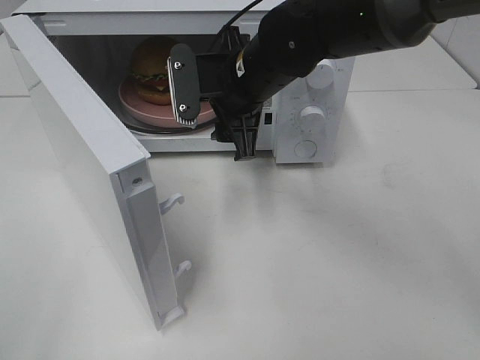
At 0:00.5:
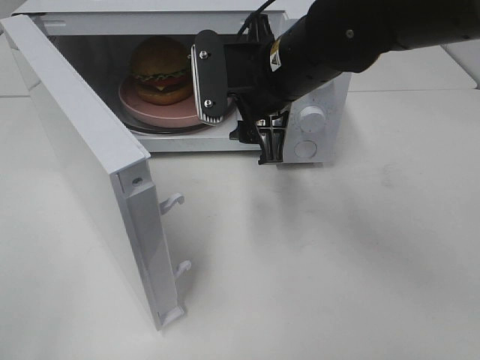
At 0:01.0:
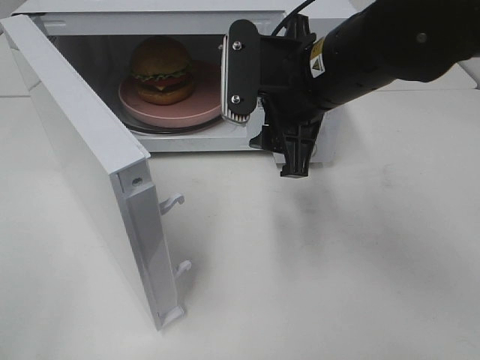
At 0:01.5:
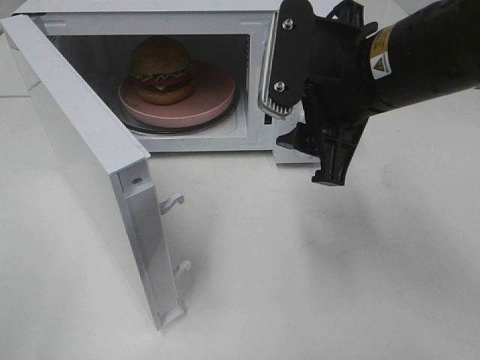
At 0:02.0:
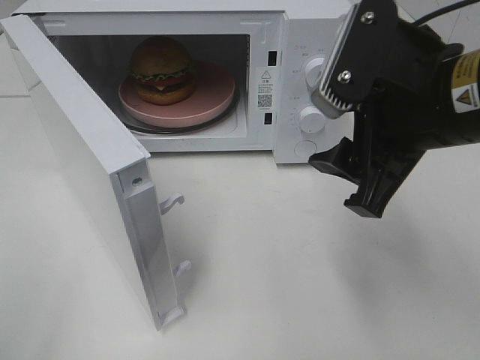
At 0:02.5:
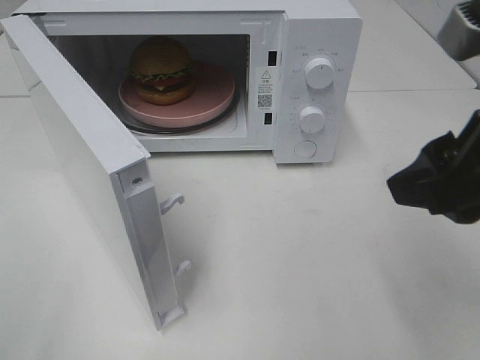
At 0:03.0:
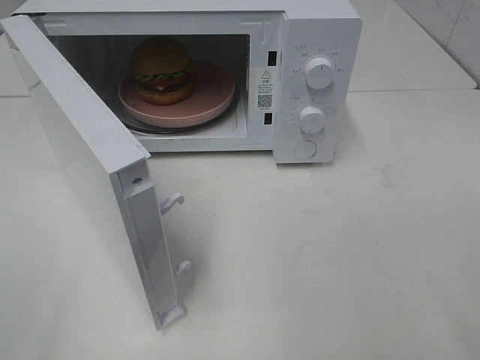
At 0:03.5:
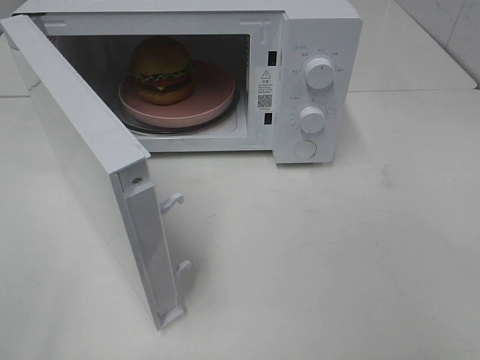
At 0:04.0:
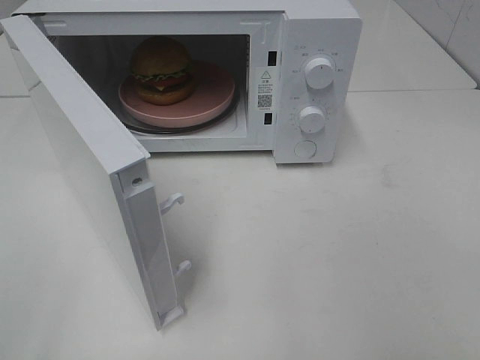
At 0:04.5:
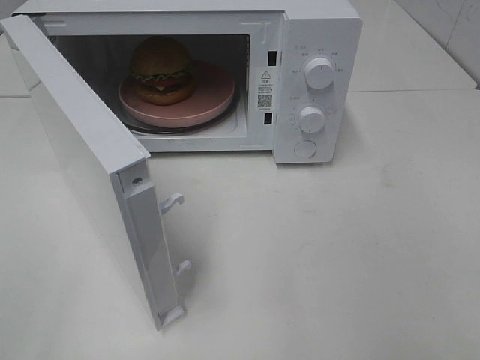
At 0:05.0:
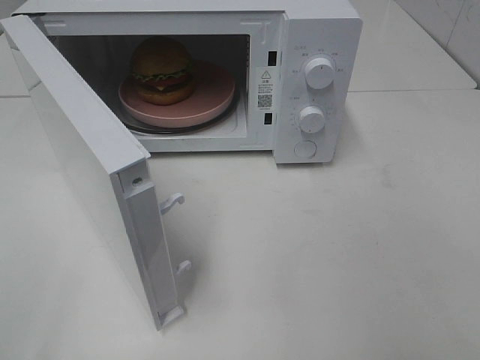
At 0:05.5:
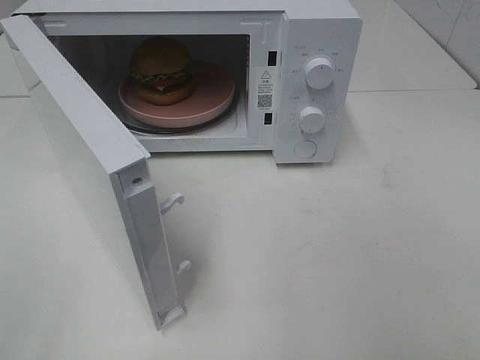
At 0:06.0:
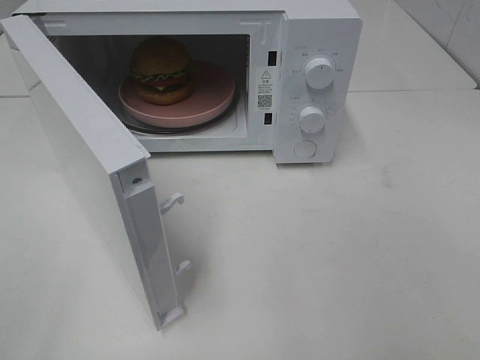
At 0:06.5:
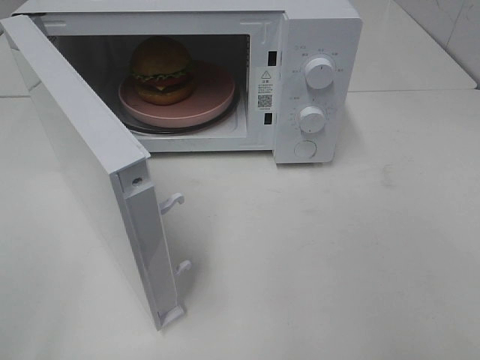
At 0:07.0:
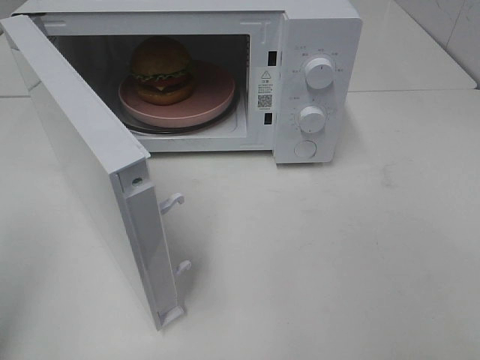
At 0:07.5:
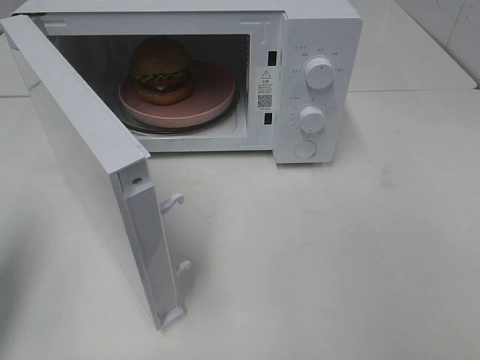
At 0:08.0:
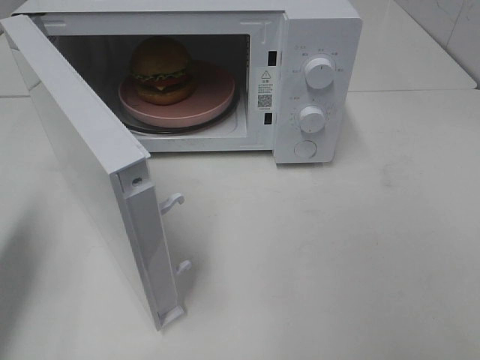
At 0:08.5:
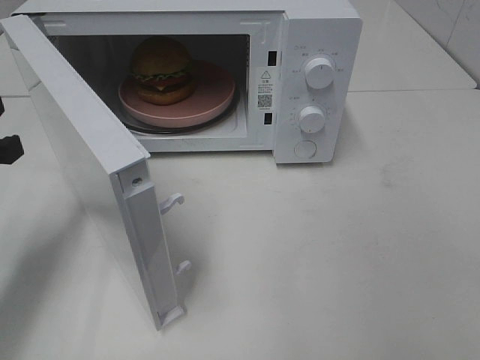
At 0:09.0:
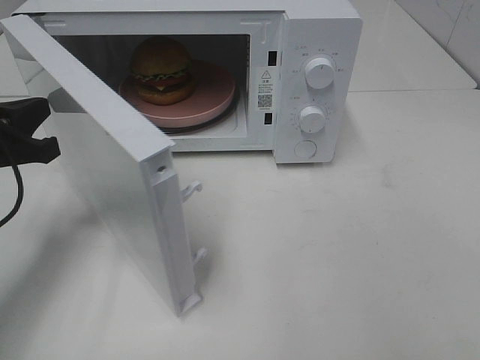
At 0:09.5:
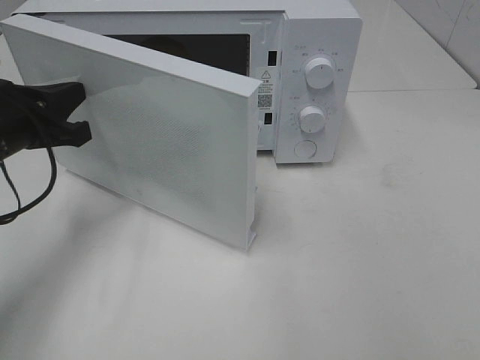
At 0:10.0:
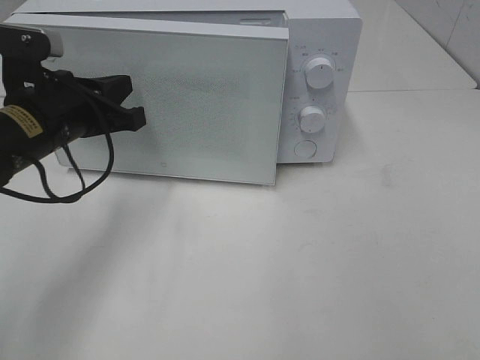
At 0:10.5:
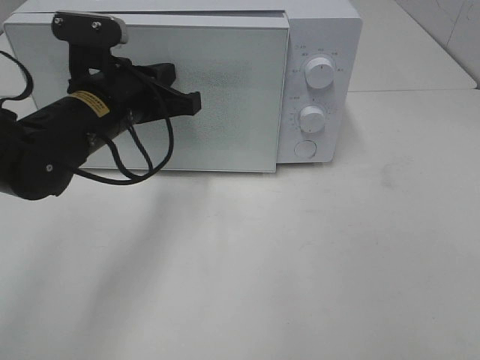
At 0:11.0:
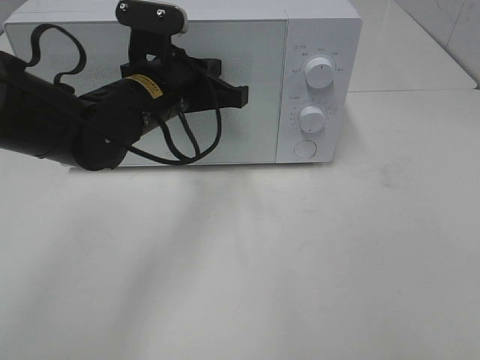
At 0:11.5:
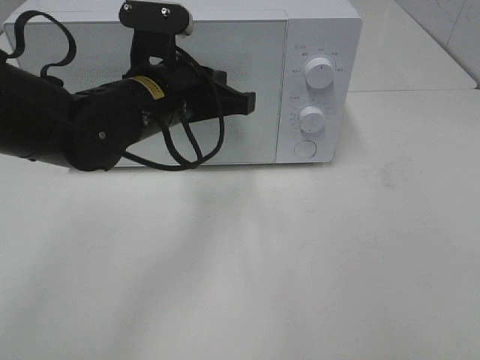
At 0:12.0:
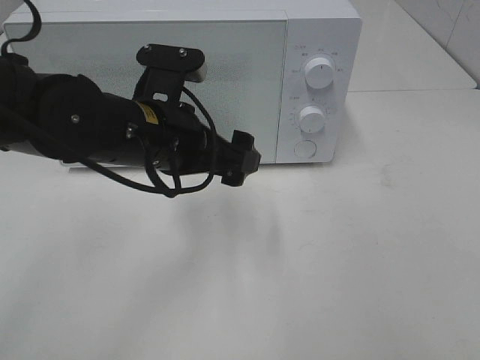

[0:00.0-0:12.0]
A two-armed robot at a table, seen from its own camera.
Task of the whole recording: Heat the burger.
Step, 0:00.0 to 0:11.5: Left hand: close the microwave door.
0:00.0 to 0:02.0: The right gripper goes about 20 cm backward and to the right.
0:02.0 to 0:04.0: The right gripper goes some 25 cm backward and to the right.
0:06.0 to 0:08.0: The left gripper travels forward by some 20 cm, and closes up.
0:08.0 to 0:10.0: The left gripper travels to the right, forward and downward by some 20 cm.
0:10.0 to 0:12.0: The left gripper travels to the right by approximately 10 cm, and opens up.

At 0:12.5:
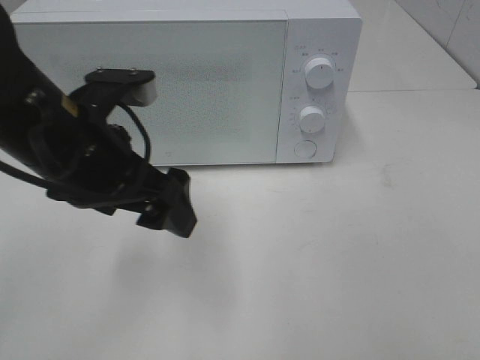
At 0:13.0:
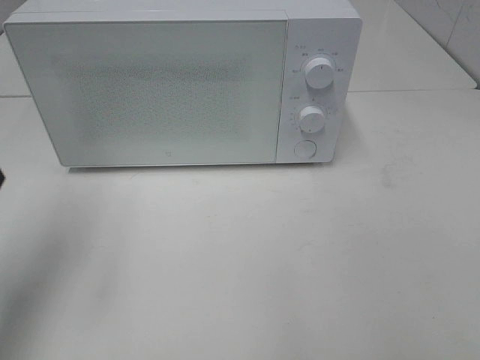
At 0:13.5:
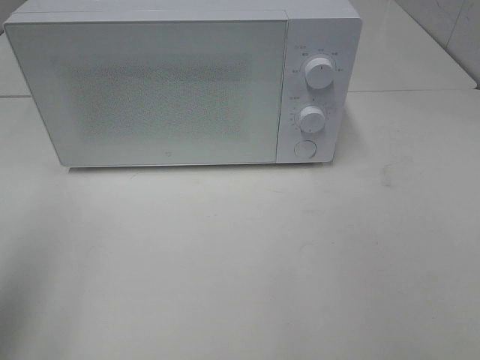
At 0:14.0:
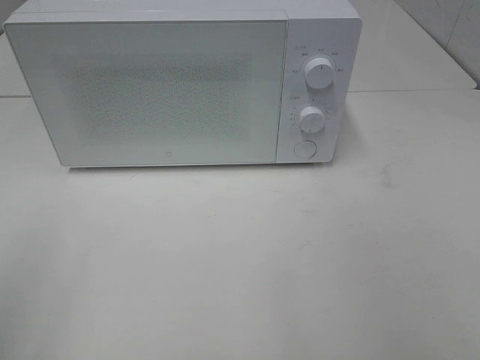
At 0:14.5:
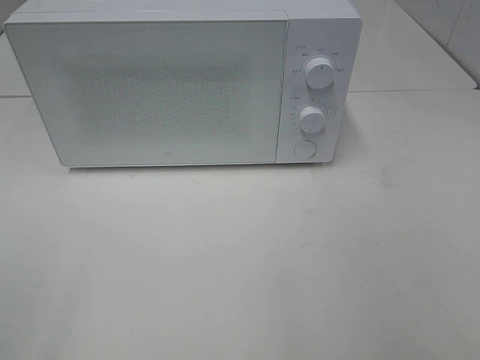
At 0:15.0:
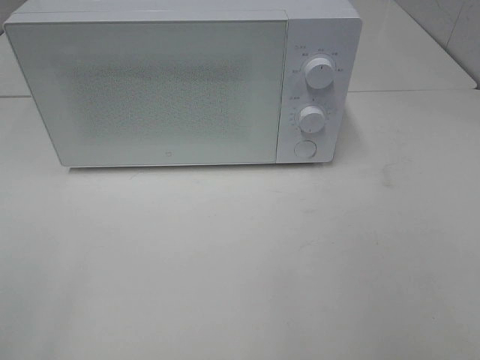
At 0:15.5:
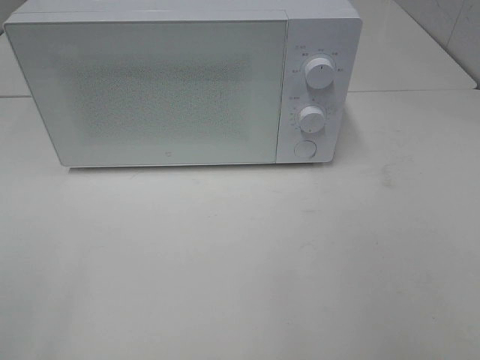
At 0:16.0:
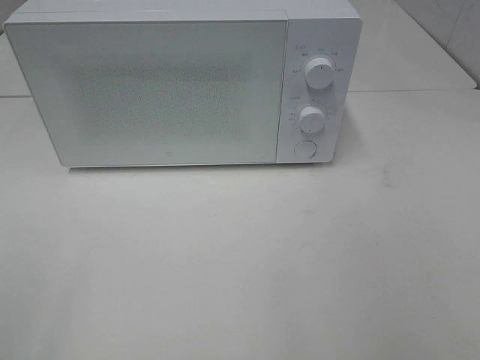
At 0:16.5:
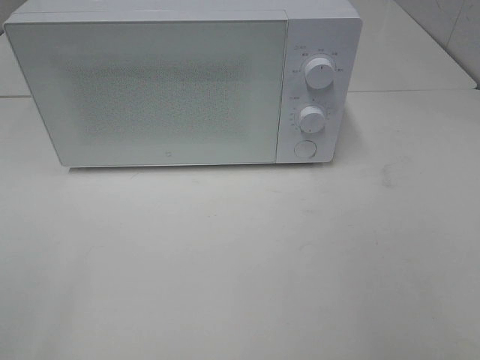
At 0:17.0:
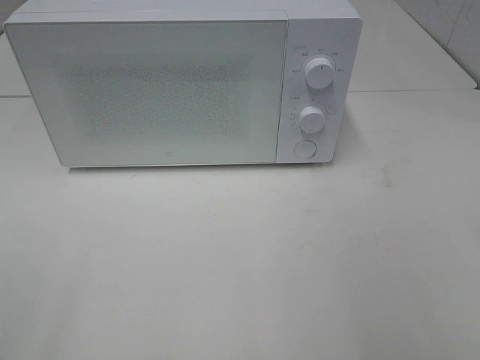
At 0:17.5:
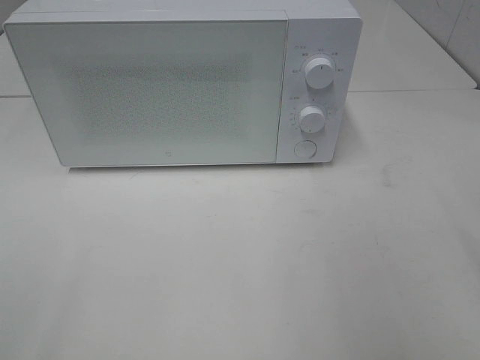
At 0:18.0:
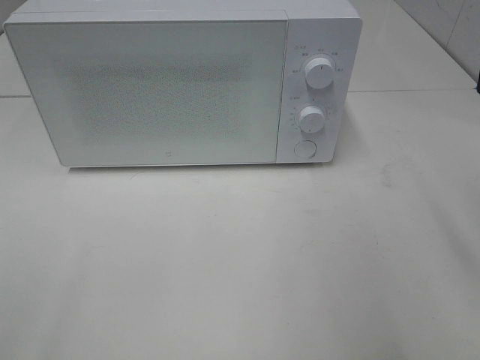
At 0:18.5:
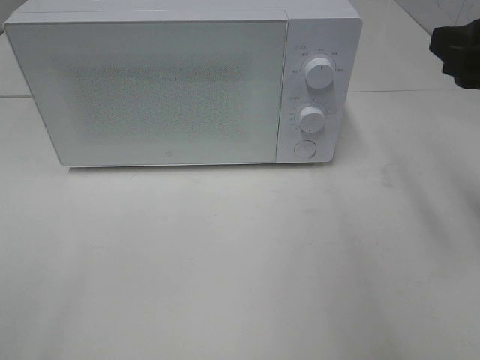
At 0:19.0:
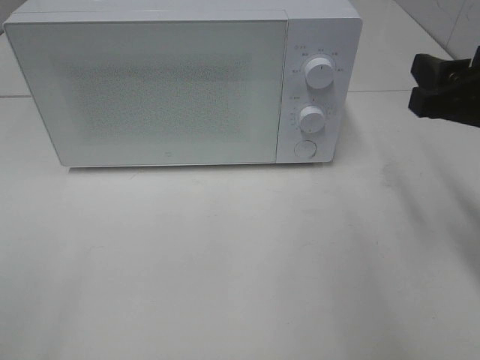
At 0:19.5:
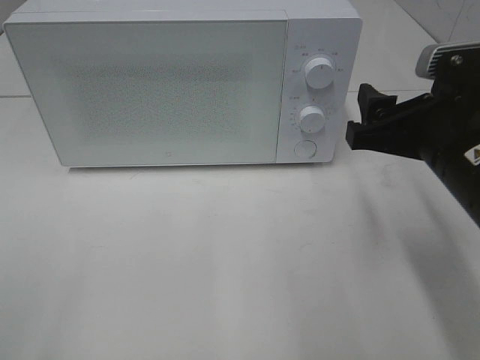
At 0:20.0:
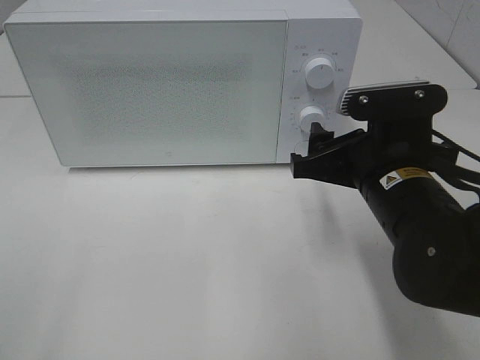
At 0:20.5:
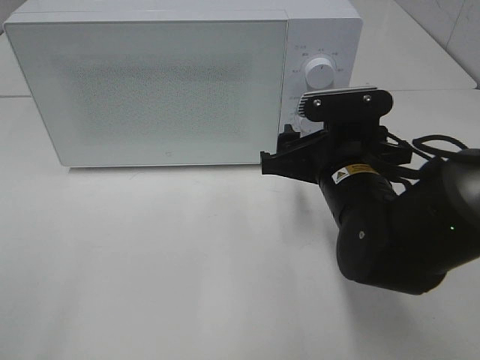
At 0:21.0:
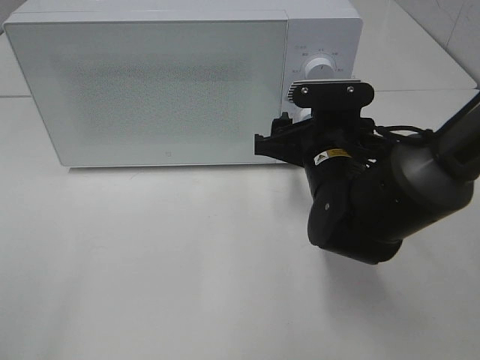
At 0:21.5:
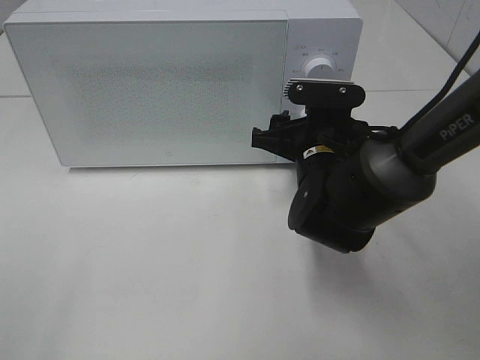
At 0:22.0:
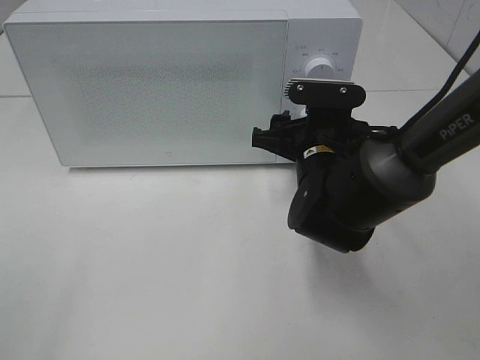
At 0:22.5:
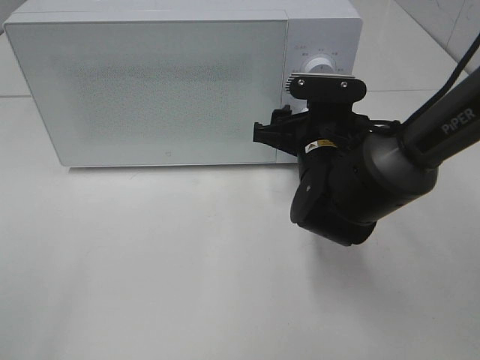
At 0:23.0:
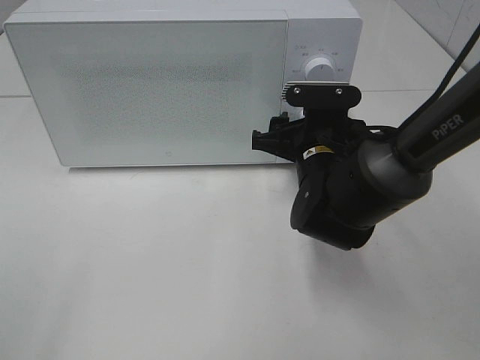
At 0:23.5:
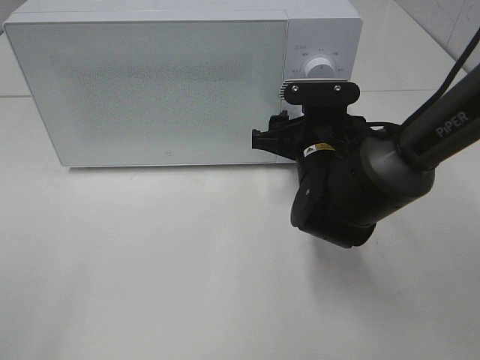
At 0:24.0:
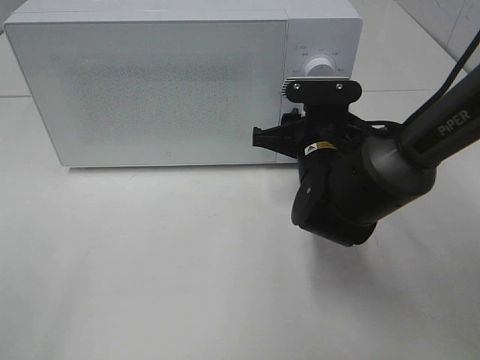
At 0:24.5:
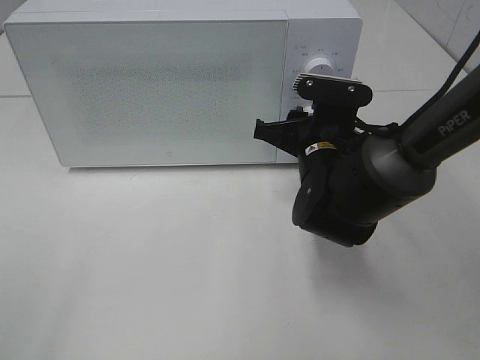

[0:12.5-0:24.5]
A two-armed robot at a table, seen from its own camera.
Task of the whole recording: Heat the burger.
0:12.5 to 0:14.5: The left gripper heads backward and to the left, covering some 30 cm.
0:16.5 to 0:18.5: The right gripper shifts some 20 cm forward.
0:18.5 to 0:20.5: The right gripper travels downward and to the left by some 20 cm.
0:20.5 to 0:22.5: The right gripper heads forward, covering roughly 5 cm.
0:22.5 to 0:24.5: There are only small adjustments of the grippers.

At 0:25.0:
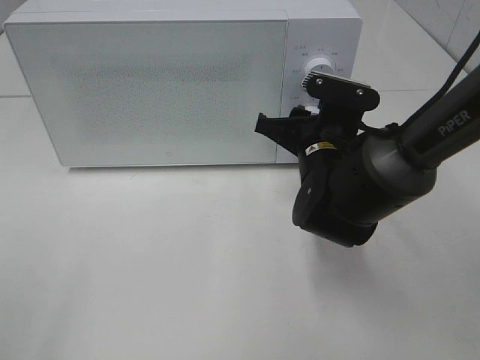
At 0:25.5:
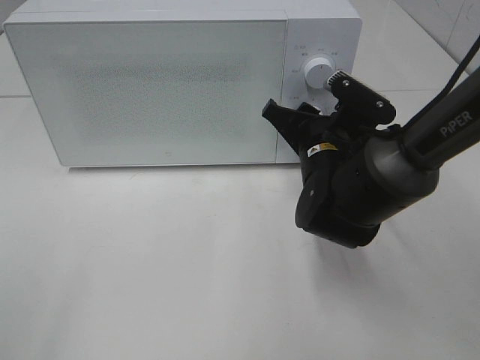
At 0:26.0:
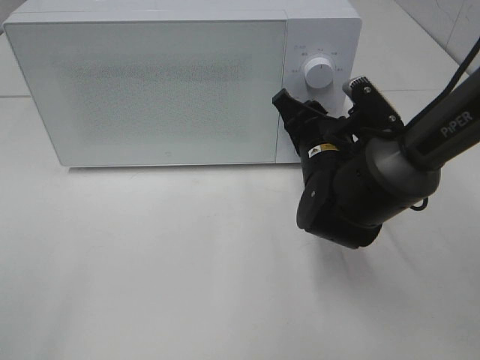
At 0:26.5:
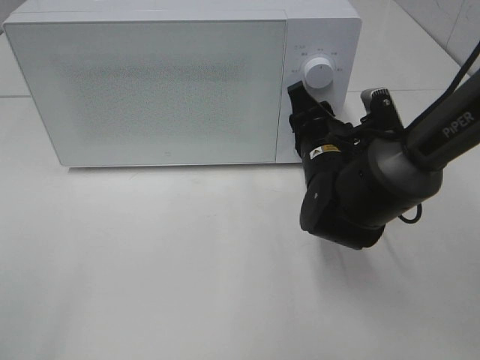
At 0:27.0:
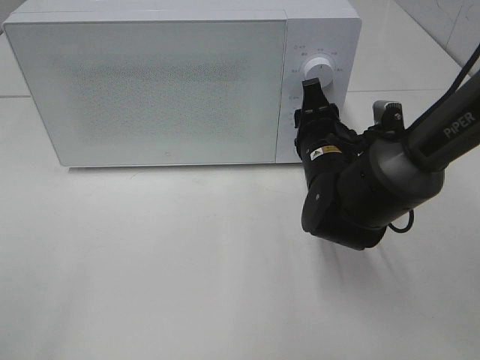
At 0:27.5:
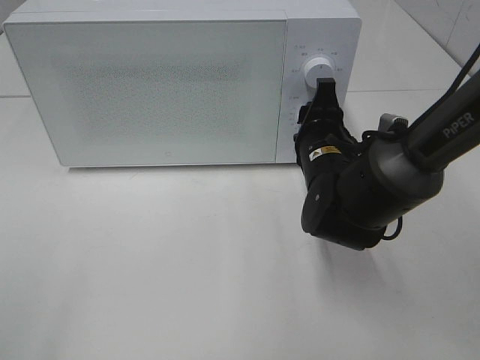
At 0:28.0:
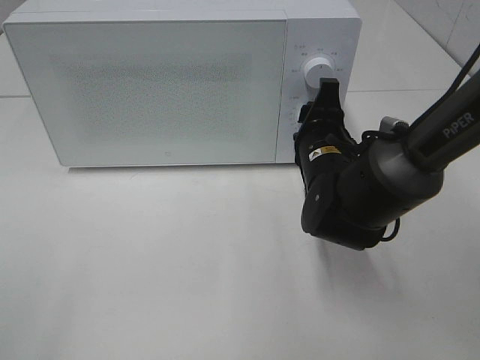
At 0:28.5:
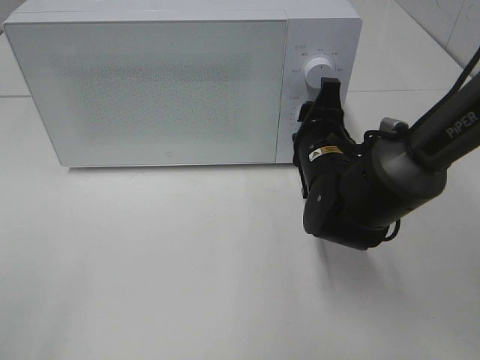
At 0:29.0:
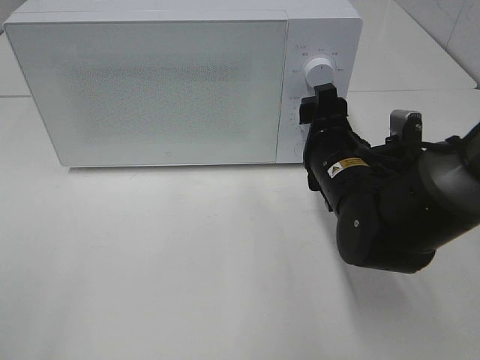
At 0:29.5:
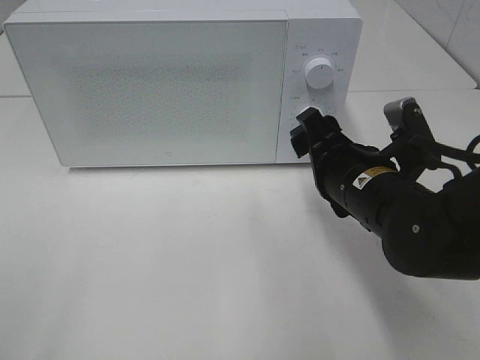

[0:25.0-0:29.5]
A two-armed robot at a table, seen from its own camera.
Task of the whole recording: Heat the burger.
Step, 0:25.0 to 0:28.5: Right hand: twist timer button.
0:27.0 to 0:29.5: The right gripper goes some 5 cm backward.
